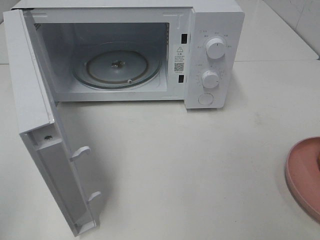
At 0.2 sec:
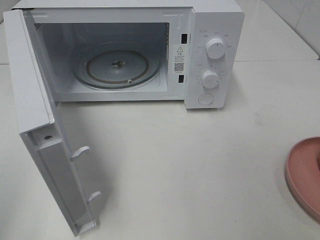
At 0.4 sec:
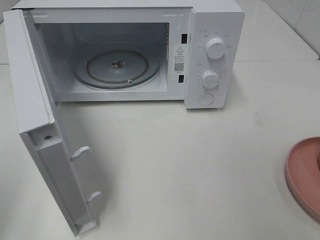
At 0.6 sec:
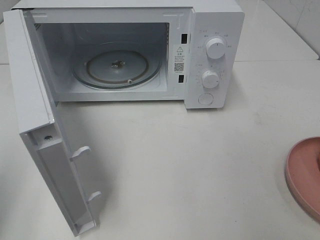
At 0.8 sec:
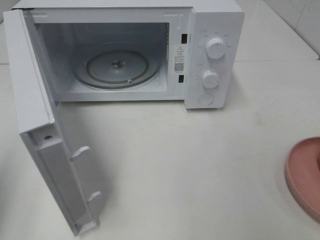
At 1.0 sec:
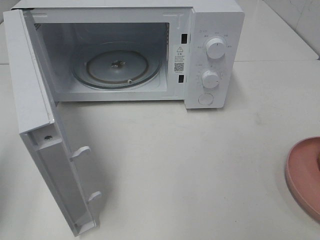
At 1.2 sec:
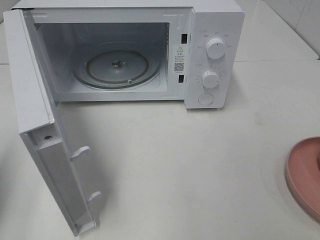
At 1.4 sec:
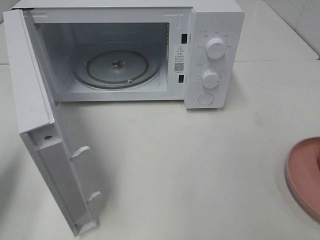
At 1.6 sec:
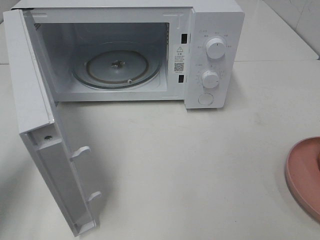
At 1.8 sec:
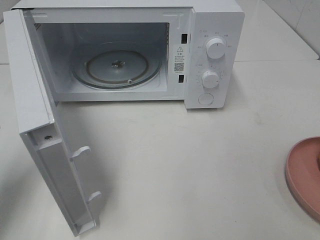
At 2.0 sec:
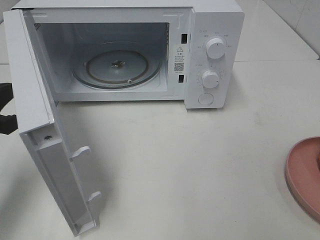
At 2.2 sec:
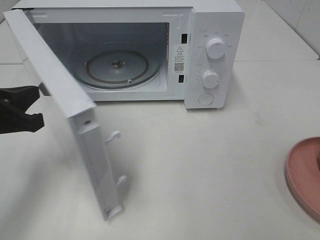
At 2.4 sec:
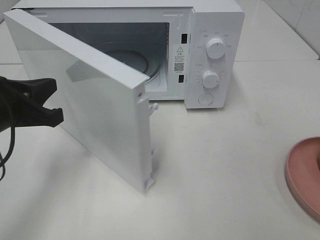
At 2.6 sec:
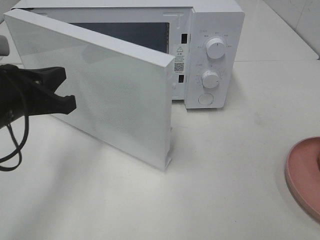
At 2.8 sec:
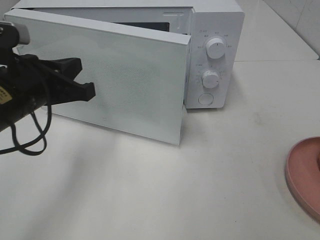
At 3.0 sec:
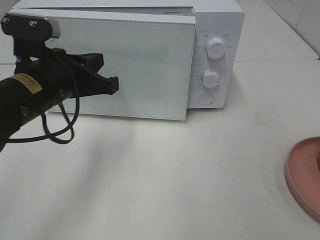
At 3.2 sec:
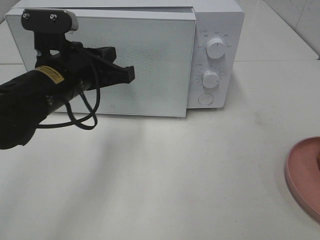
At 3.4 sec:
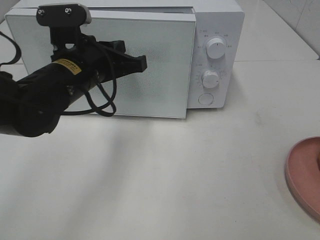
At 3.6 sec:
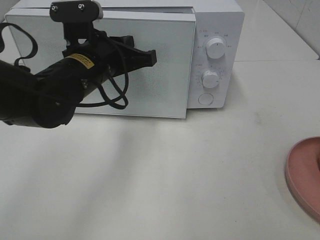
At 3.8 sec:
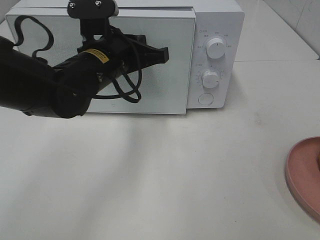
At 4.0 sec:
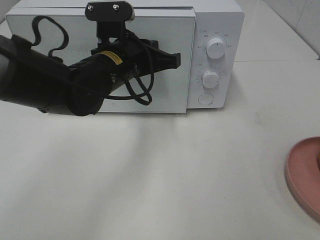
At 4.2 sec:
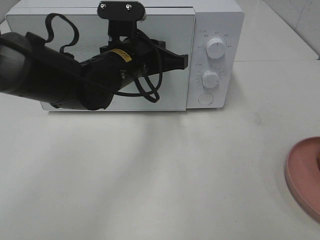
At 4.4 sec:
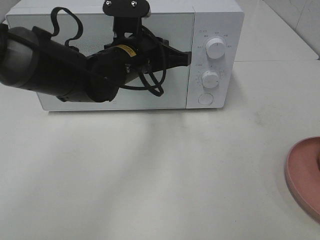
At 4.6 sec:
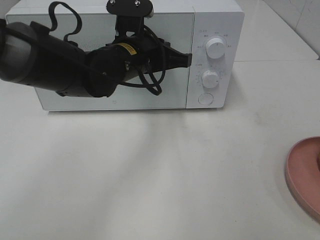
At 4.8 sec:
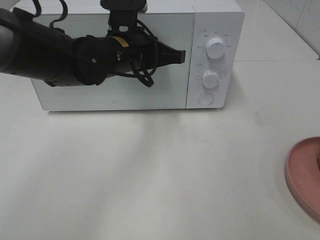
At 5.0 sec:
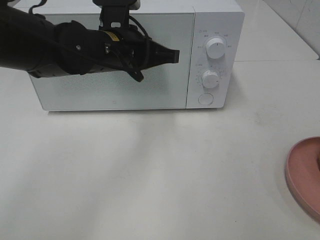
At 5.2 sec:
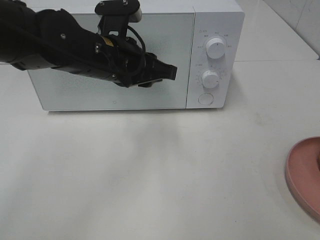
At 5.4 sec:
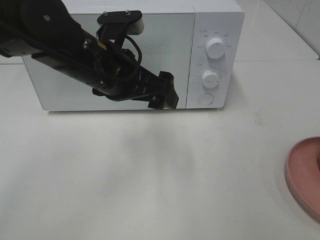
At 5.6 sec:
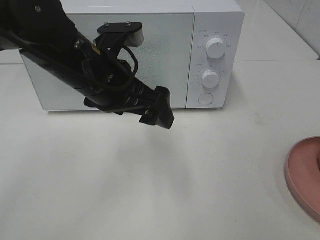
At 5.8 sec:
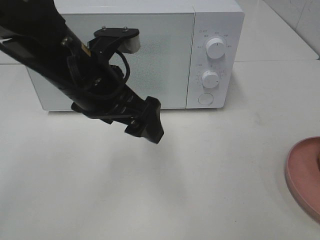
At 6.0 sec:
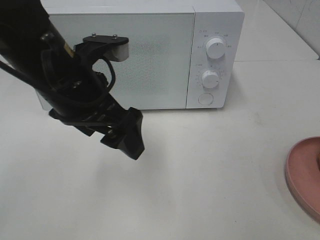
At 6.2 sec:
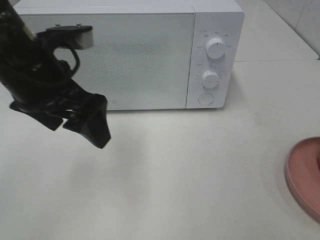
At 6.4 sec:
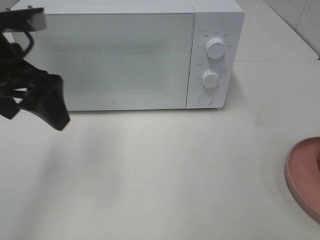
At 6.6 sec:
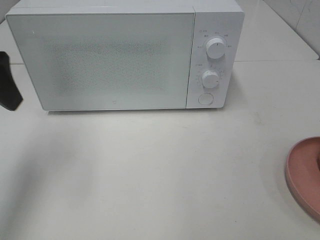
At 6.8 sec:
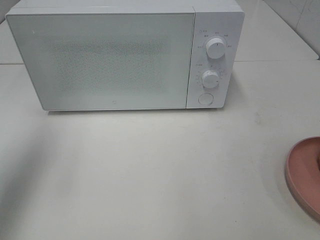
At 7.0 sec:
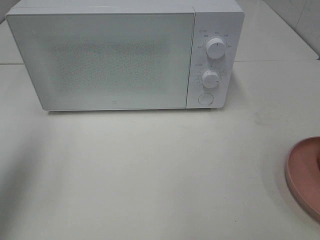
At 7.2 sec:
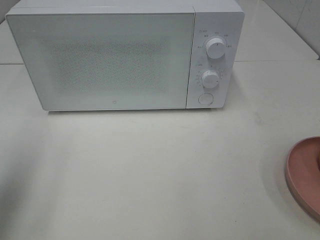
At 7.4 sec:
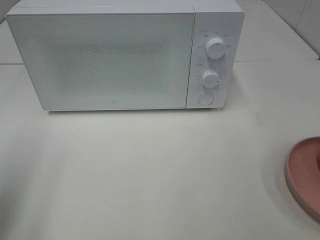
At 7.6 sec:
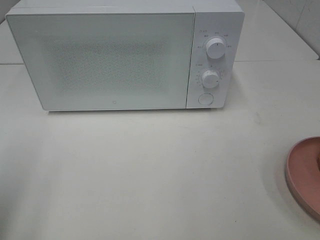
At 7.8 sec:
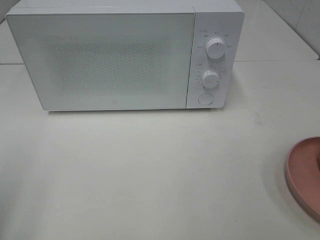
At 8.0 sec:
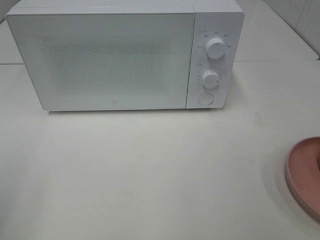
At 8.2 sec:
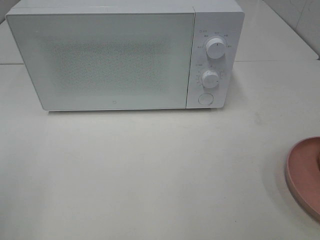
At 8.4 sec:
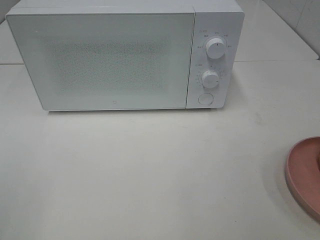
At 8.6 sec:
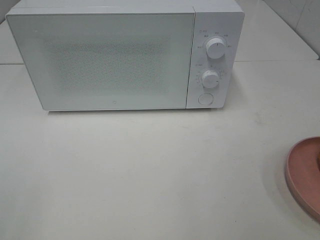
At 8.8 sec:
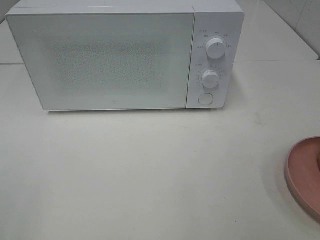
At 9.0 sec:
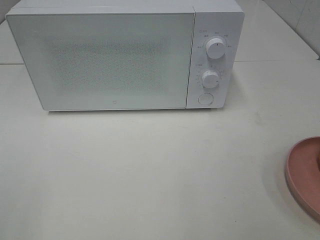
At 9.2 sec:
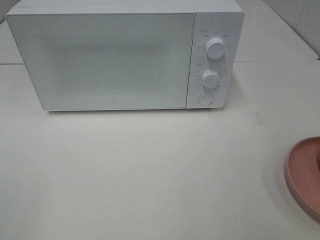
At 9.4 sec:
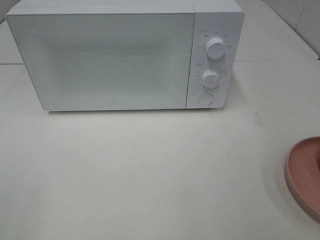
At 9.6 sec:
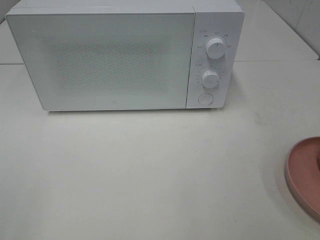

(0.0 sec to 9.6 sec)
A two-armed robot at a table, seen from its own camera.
Task of the whole recording: Heat the burger.
Step, 0.0 sec - 5.0 sec: Left hand: close the microwave door.
0.0 sec - 1.6 sec: The left gripper heads forward and downward, covering about 20 cm.
1.6 sec - 3.2 sec: The left gripper is displaced to the right and forward by approximately 20 cm.
3.2 sec - 4.8 sec: The left gripper goes some 10 cm to the right and forward.
4.8 sec - 6.4 sec: The left gripper travels to the left, backward and upward by approximately 20 cm, and opens its fingers.
6.4 sec - 8.0 sec: The left gripper heads backward and to the left, covering approximately 20 cm.
